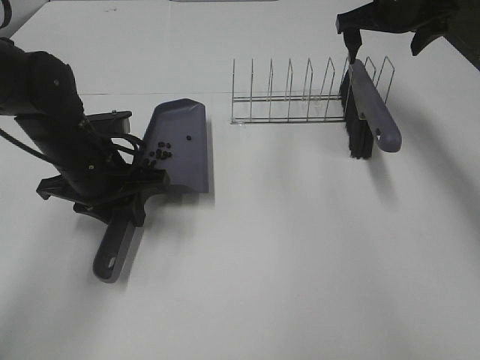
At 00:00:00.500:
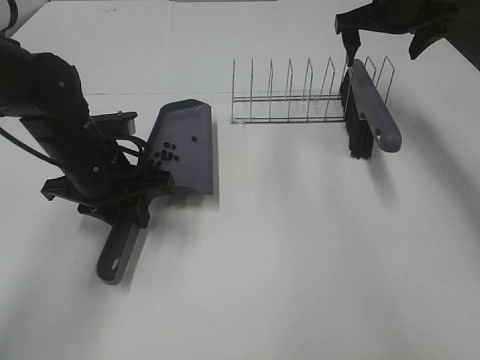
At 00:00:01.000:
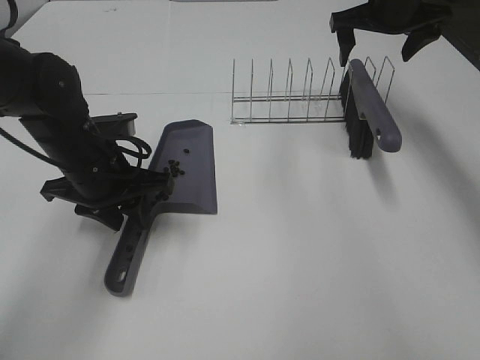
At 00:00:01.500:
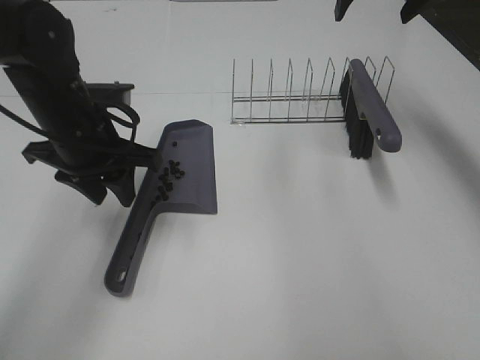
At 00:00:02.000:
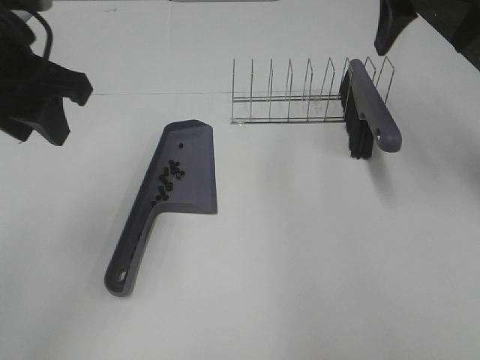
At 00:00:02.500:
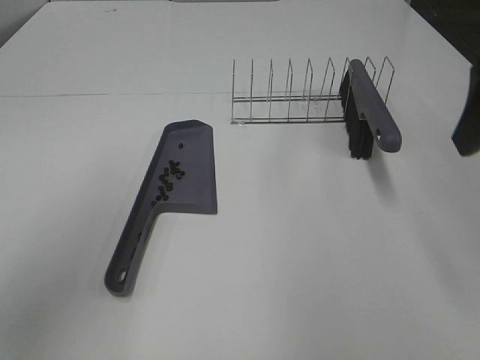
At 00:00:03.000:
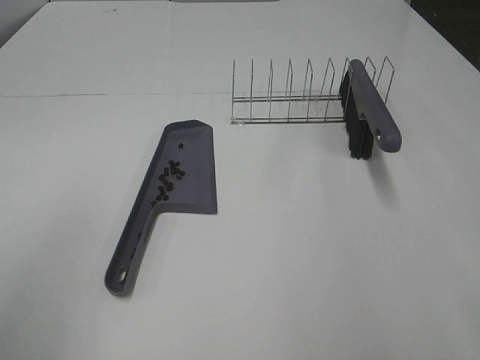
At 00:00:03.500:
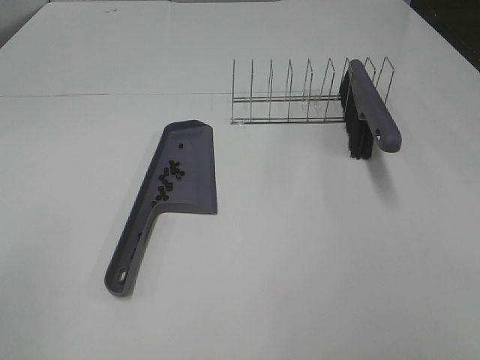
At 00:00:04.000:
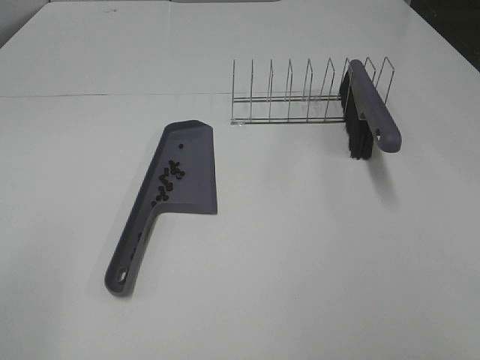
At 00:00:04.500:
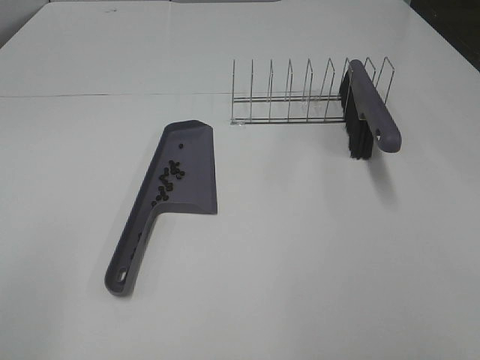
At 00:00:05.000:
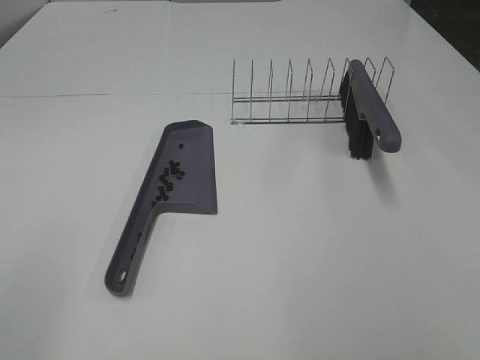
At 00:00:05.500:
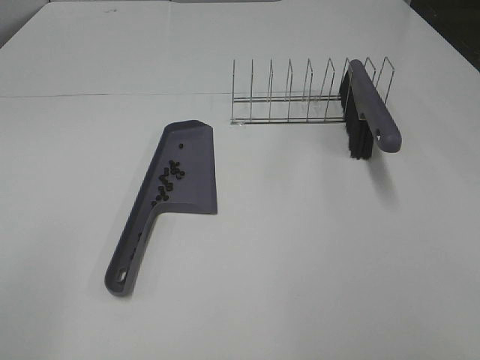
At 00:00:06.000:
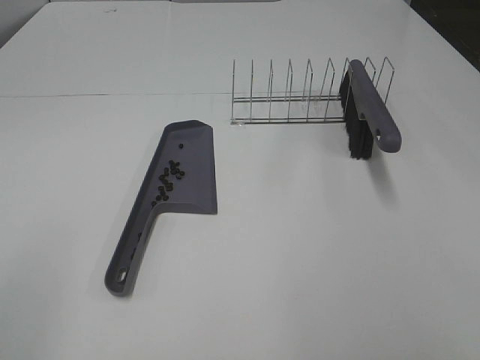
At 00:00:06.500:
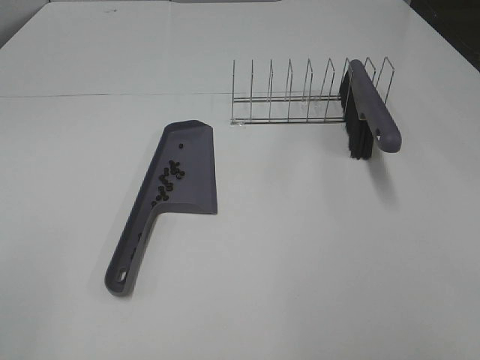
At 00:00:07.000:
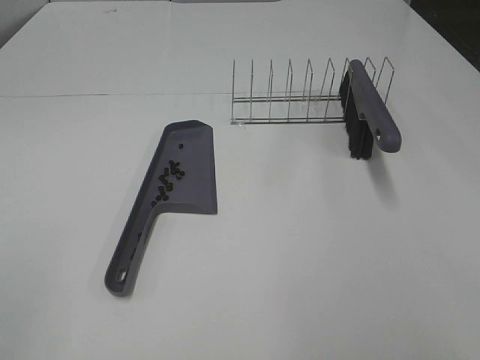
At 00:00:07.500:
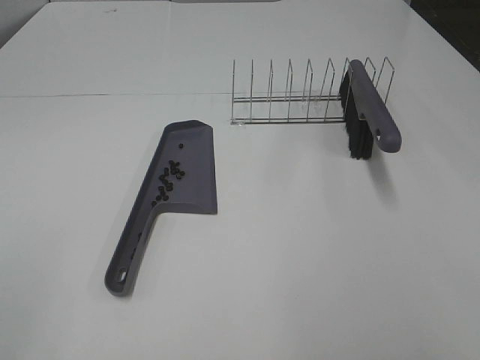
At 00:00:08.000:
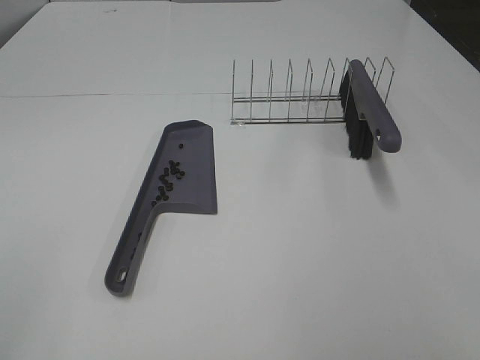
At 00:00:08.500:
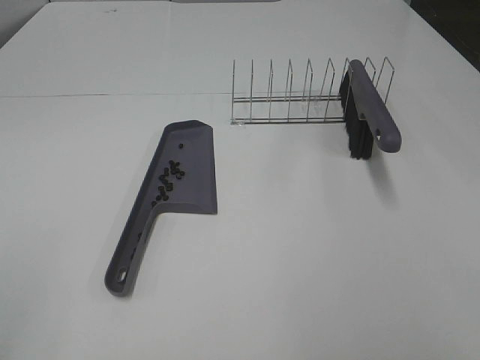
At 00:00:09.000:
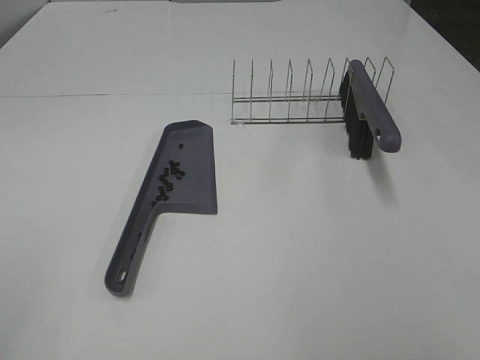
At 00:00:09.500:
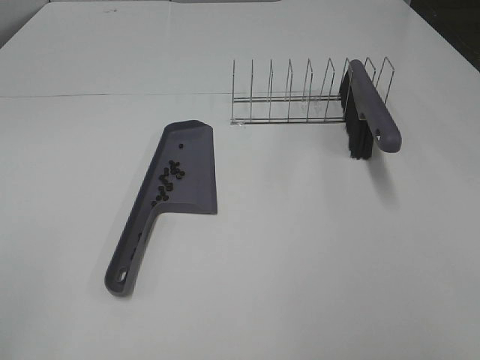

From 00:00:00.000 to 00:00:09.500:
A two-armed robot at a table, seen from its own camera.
Task of the whole recording: Sweep Coffee Bean.
Step, from 00:00:00.000 to 00:00:01.000: Left hand:place the dustpan on the table.
From 00:00:00.000 to 00:00:02.000: The right gripper moves backward and upward, some 15 cm. The left gripper moves upward, about 15 cm.
From 00:00:02.000 to 00:00:04.000: The right gripper goes roughly 40 cm backward. The left gripper heads backward and to the left, covering approximately 30 cm.
From 00:00:04.000 to 00:00:05.500: The two grippers keep their place.
